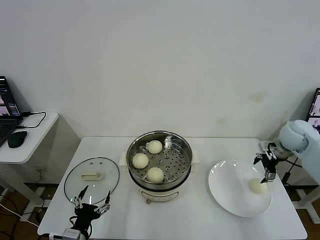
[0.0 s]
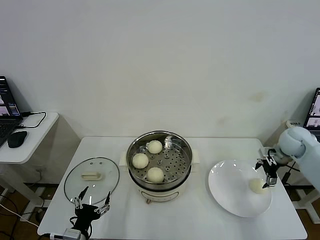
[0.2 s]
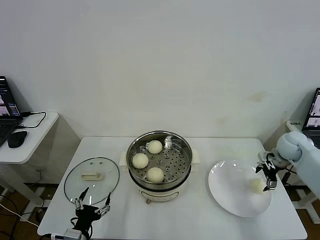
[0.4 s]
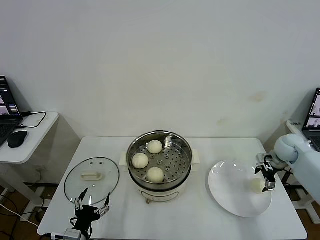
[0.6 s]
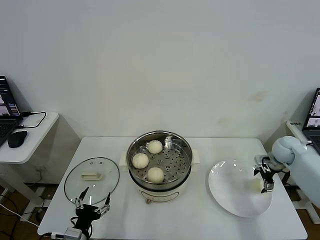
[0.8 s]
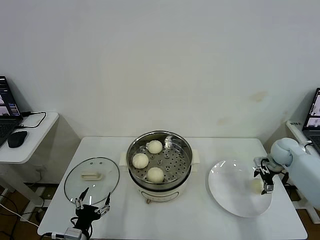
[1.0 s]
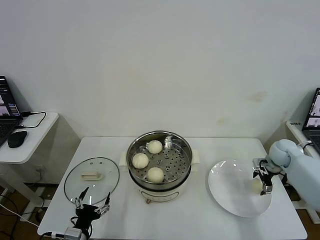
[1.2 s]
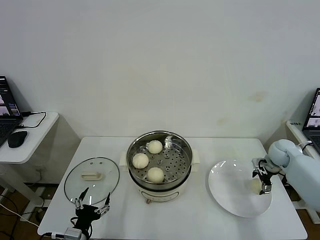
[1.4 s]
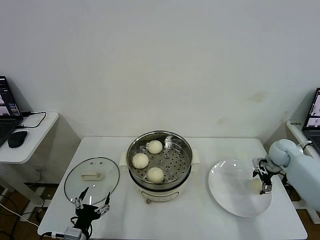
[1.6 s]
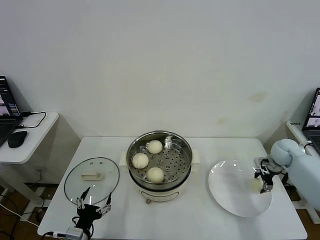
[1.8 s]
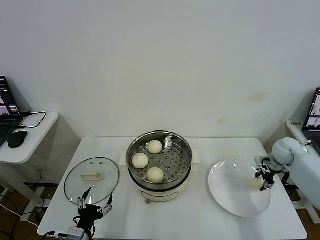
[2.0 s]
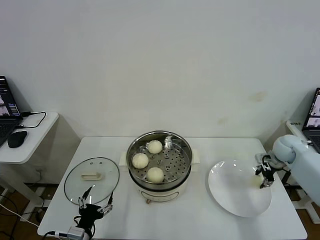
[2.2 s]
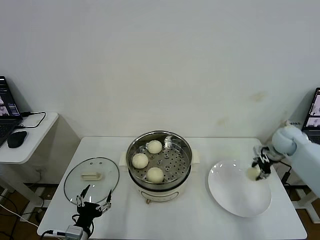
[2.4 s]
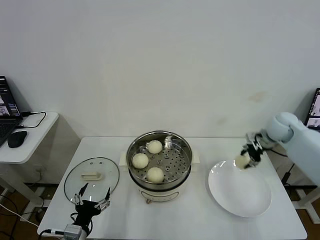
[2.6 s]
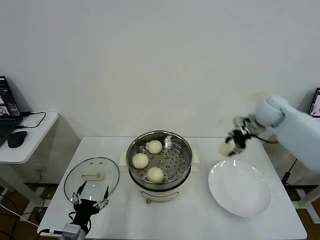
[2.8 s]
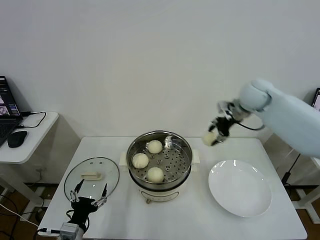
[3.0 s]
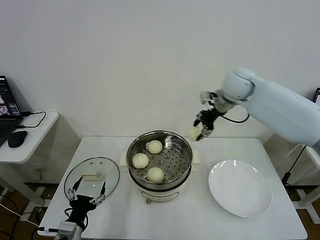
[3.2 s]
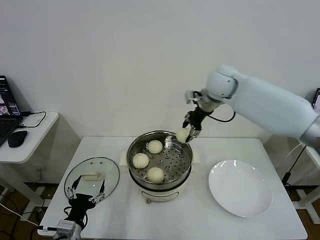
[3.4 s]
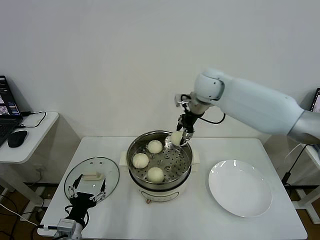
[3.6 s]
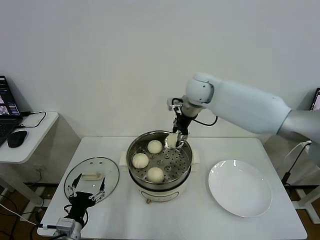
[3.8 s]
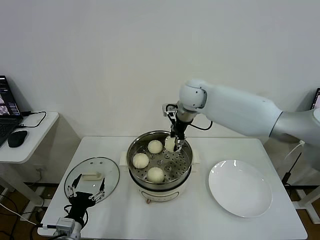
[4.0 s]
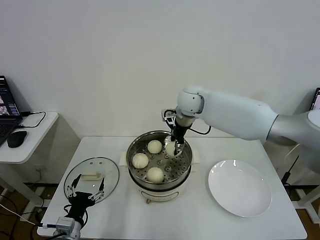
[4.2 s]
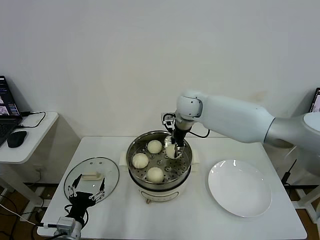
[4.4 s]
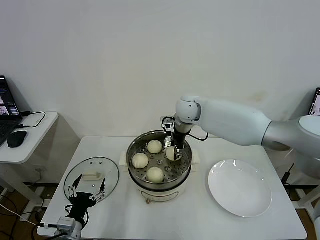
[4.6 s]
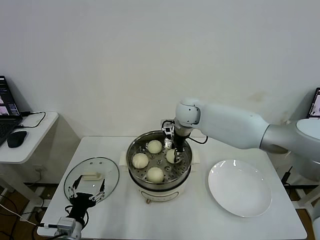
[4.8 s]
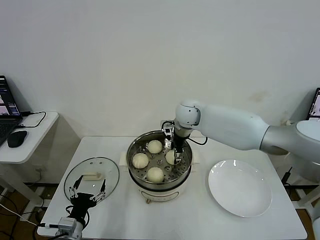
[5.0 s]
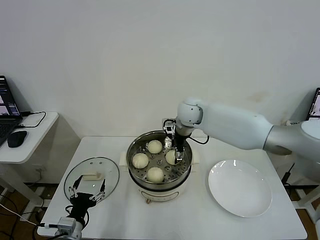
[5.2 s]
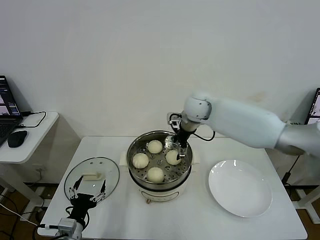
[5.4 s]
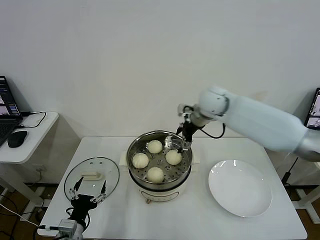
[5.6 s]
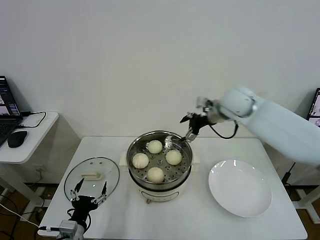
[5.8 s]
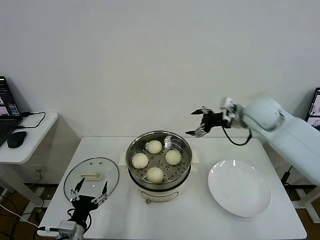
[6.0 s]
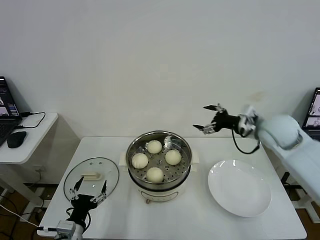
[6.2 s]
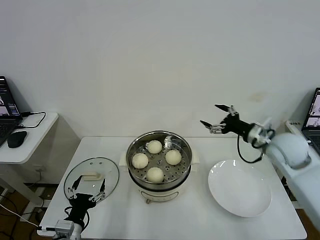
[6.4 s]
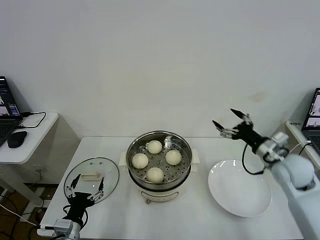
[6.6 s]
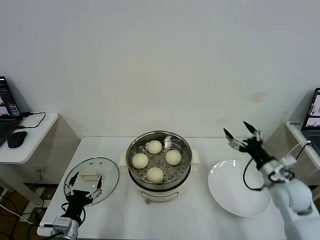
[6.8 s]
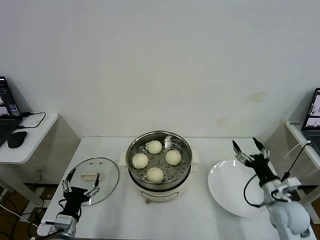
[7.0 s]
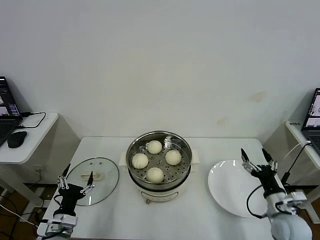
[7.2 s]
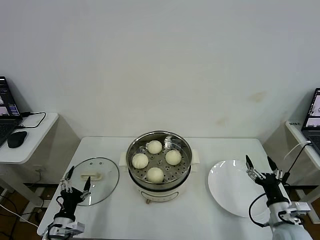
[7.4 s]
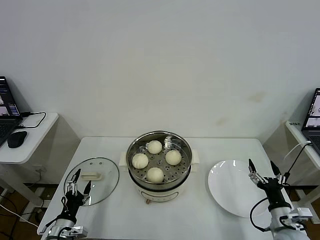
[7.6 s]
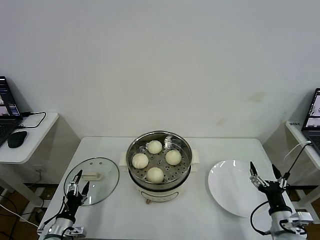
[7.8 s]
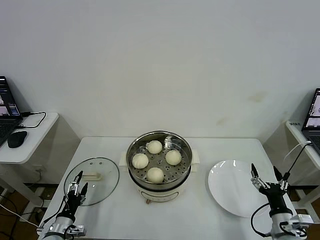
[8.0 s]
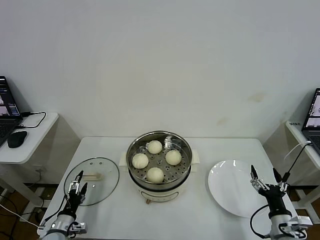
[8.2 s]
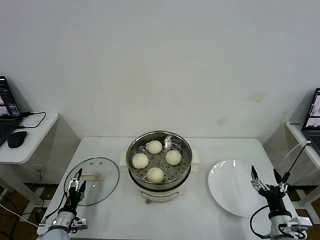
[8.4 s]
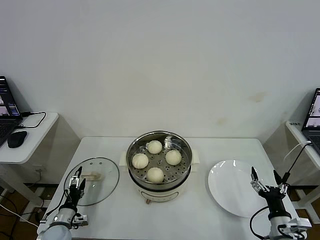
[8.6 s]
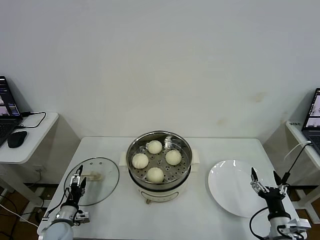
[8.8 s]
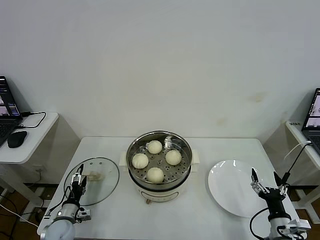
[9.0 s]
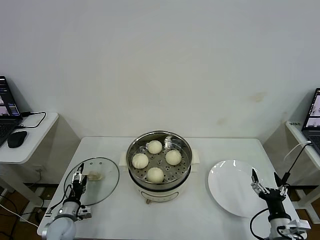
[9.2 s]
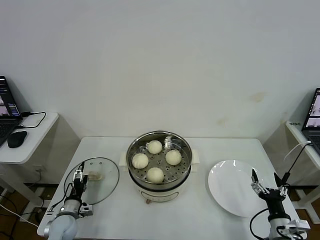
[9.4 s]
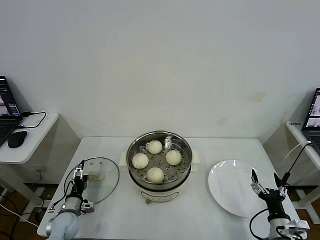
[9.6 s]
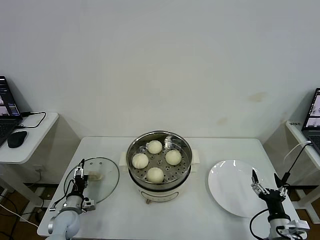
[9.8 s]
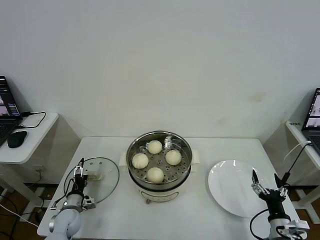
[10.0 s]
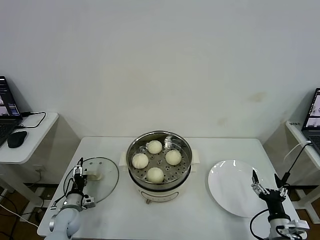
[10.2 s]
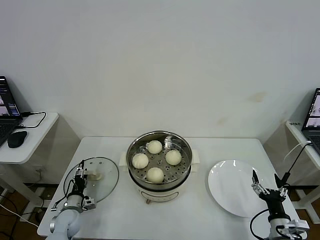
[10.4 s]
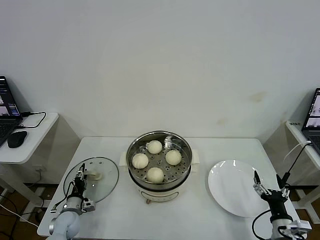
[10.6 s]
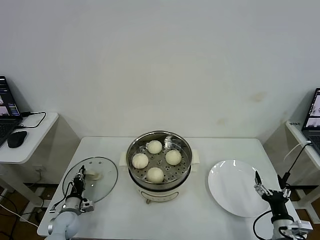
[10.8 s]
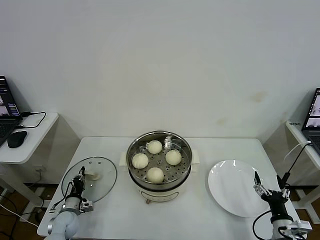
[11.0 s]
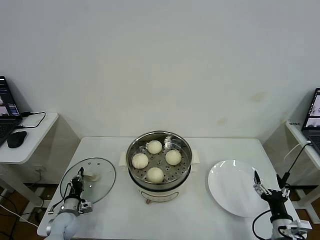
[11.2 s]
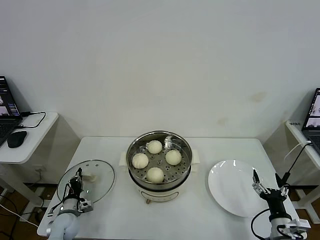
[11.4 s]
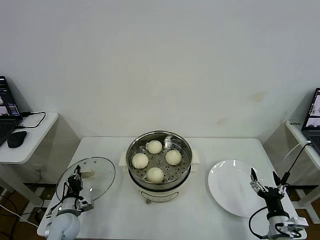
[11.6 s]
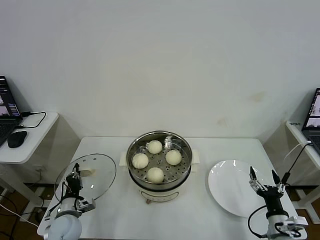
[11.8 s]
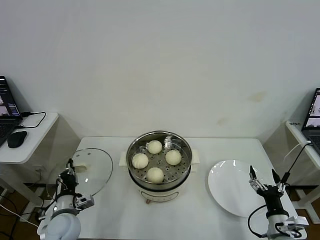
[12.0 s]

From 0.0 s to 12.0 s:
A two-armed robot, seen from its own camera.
Task of the whole recording: take steamed baozi put them in steamer then cover it.
Step, from 0.0 s to 2.0 s: Grasp the baozi in the plate with right gripper.
Step, from 2.4 s to 5.2 s: Place the baozi on the steamer with right gripper.
Step, from 5.4 s to 11.2 s: Grasp the pot lid with left gripper.
From 0.0 s to 1.6 s: The right gripper moves downward, some 10 cm.
From 1.6 s to 3.0 s: The right gripper goes some 30 cm upward and to the left, and closes its fingers.
From 3.0 s to 4.4 s: The right gripper goes some 20 cm to the left.
From 4.4 s to 6.0 s: The right gripper travels to the right and backward by some 20 cm, and opens its fingers.
From 6.0 s to 7.6 s: The right gripper heads backward and downward, covering roughly 40 cm, while the left gripper shifts about 10 cm to the left and downward.
From 7.6 s to 9.0 s: The left gripper travels forward by some 5 cm.
From 9.0 s to 10.4 s: The left gripper ends up roughly 5 cm from where it was.
From 10.4 s to 12.0 s: The left gripper goes some 15 cm upward, to the right and backward, and closes.

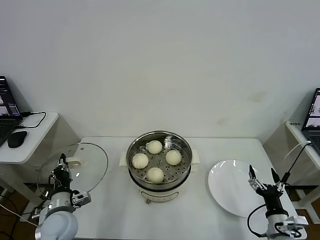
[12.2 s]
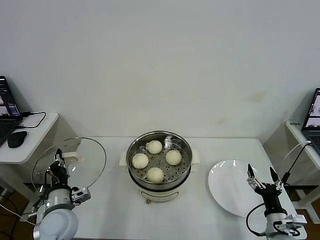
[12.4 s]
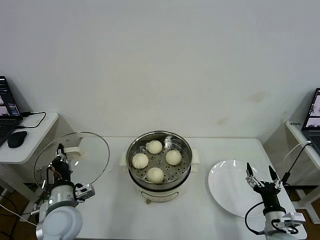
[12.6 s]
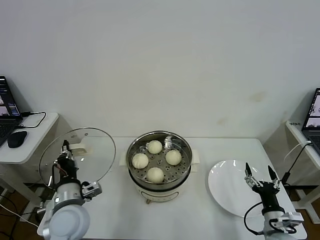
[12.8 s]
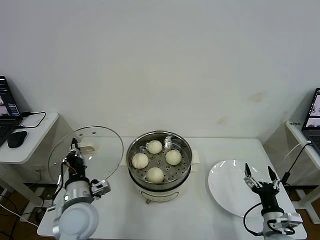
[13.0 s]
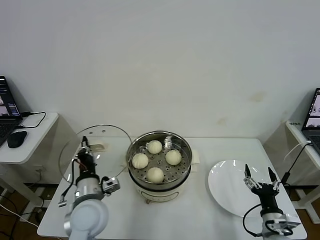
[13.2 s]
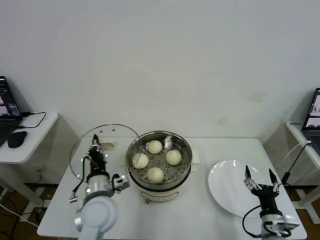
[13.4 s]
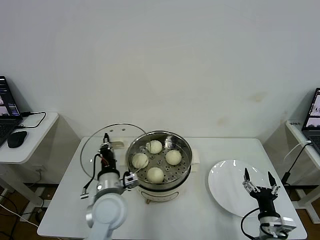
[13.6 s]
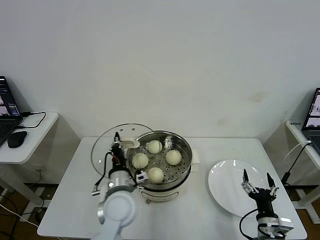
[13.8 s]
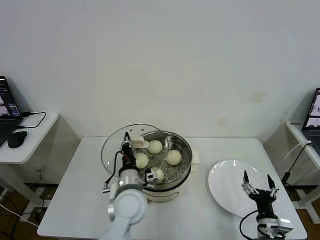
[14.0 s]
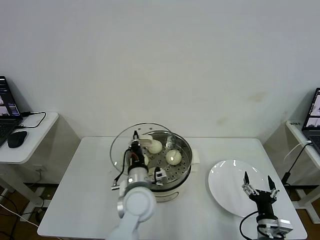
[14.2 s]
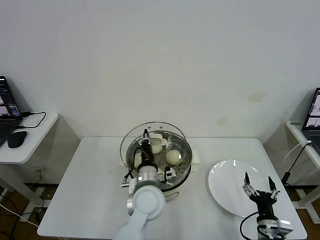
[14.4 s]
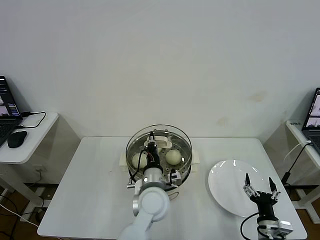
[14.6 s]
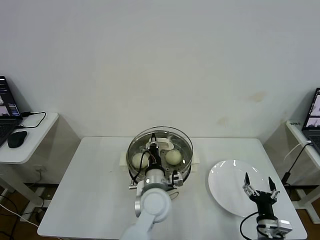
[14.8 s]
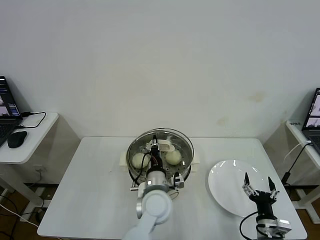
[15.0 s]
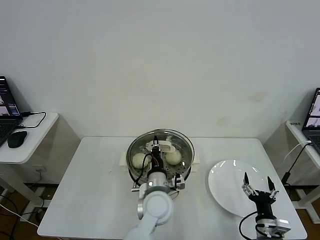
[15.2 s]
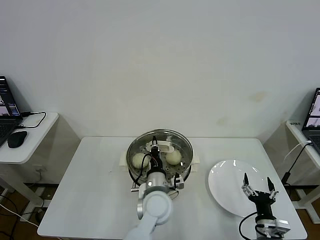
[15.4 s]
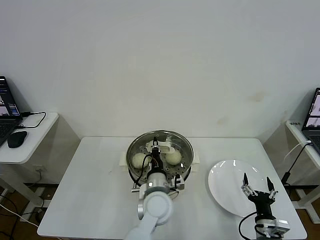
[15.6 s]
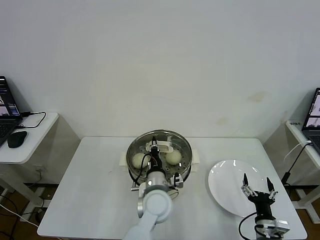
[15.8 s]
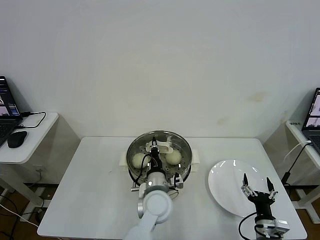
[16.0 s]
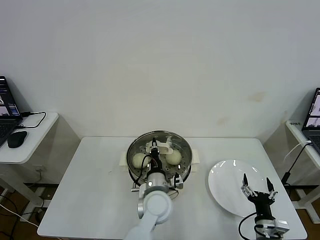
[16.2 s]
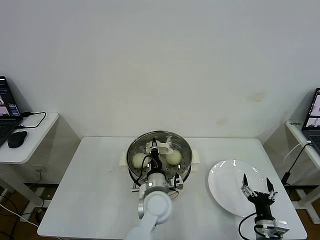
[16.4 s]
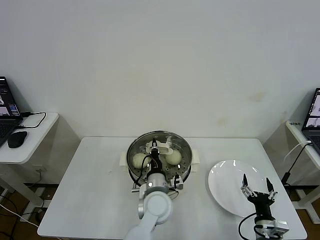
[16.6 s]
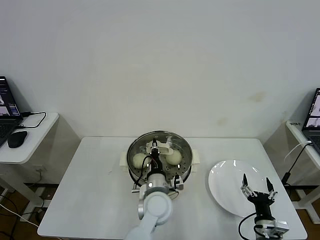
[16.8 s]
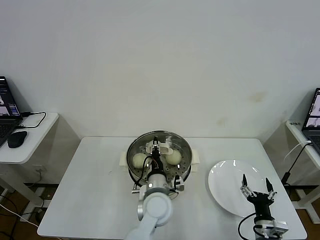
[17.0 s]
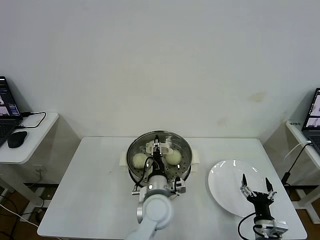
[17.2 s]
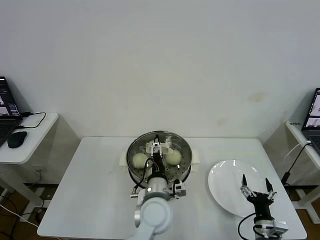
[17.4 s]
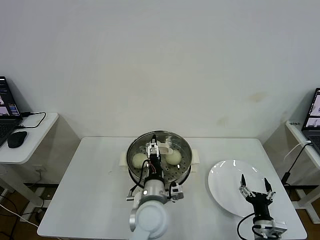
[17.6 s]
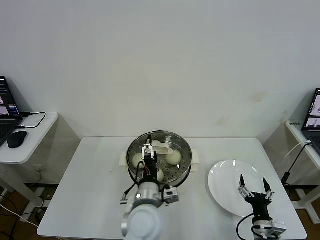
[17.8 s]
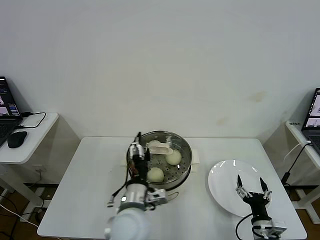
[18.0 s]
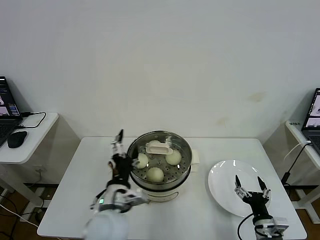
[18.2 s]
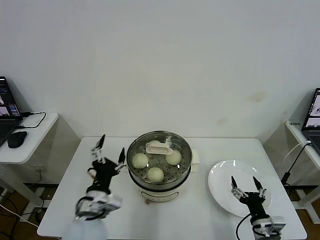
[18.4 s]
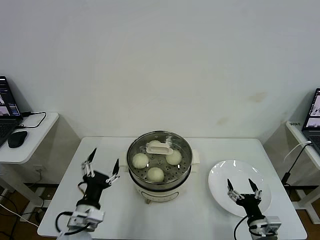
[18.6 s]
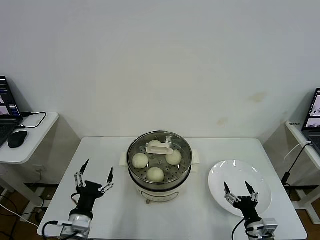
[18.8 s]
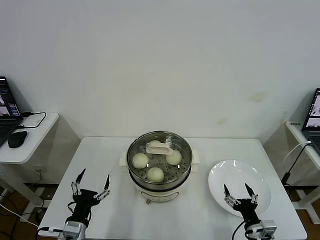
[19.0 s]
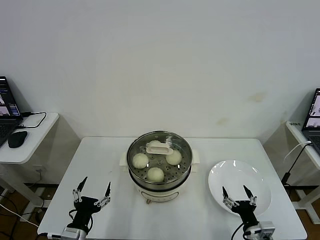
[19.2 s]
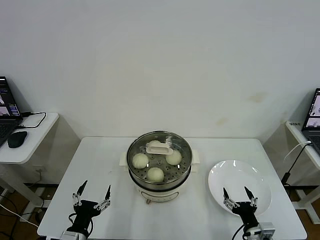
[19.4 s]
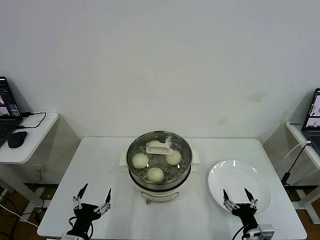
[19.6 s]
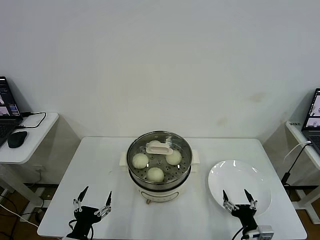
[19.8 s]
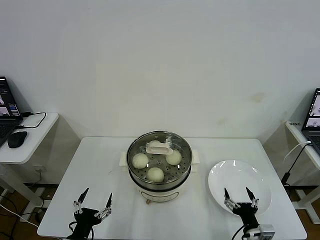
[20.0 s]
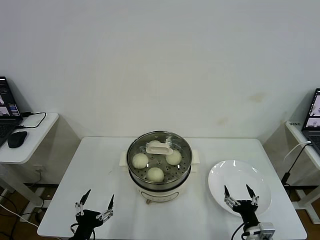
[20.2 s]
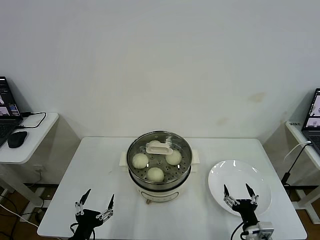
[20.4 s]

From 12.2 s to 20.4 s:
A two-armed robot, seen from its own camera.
Task of the whole recording: take steamed baozi put them in steamer then cover it.
Step, from 12.2 s to 17.2 s: Place the pot lid on the steamer with left gripper.
From 12.2 s to 13.8 s: The left gripper heads to the right, covering approximately 20 cm.
From 13.8 s to 15.4 s: The left gripper heads to the right, covering about 10 cm.
From 15.4 s to 17.2 s: The left gripper opens.
From 17.2 s to 18.8 s: The left gripper moves to the left and backward, about 25 cm, and opens its fingers.
From 18.8 s to 20.4 s: The left gripper is displaced backward by about 5 cm.
